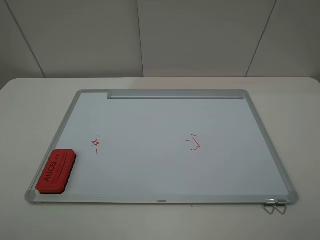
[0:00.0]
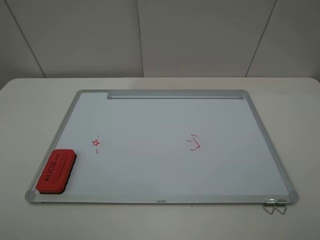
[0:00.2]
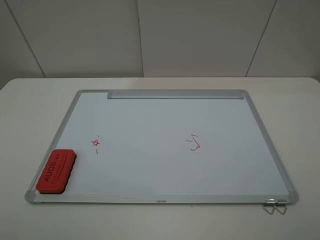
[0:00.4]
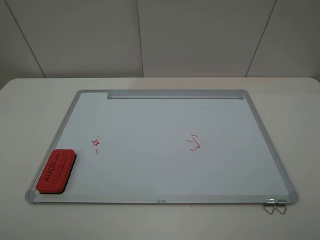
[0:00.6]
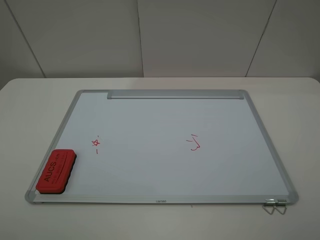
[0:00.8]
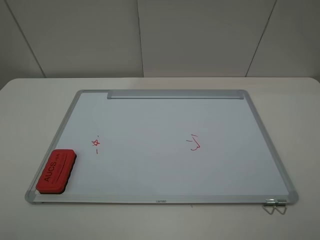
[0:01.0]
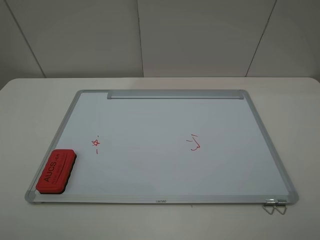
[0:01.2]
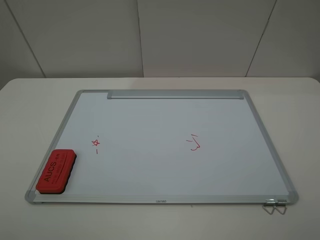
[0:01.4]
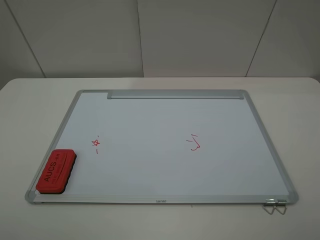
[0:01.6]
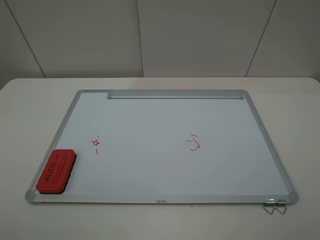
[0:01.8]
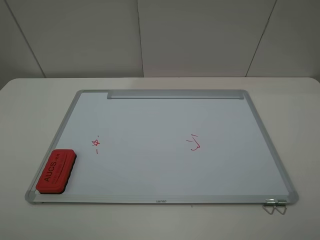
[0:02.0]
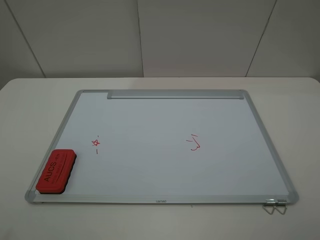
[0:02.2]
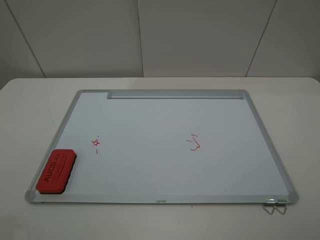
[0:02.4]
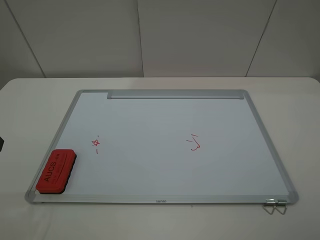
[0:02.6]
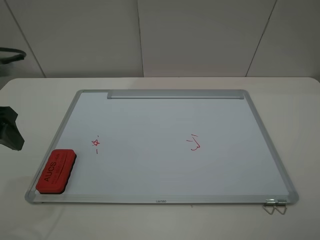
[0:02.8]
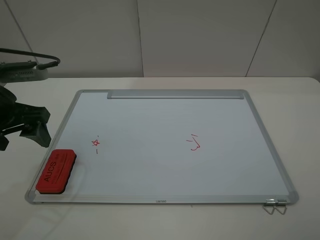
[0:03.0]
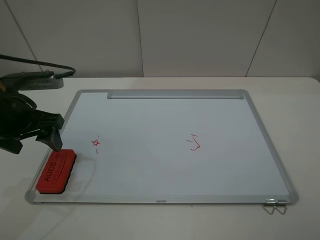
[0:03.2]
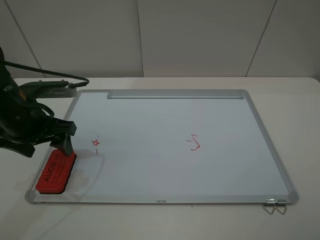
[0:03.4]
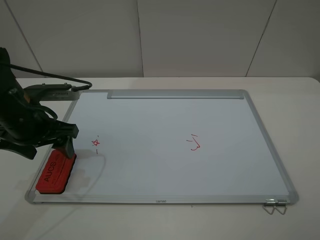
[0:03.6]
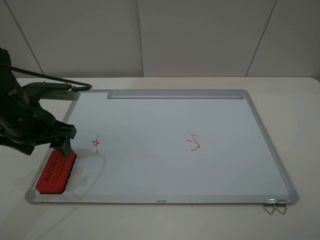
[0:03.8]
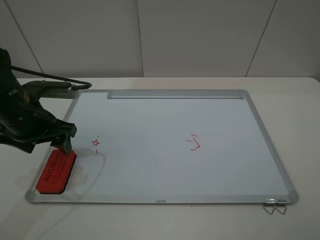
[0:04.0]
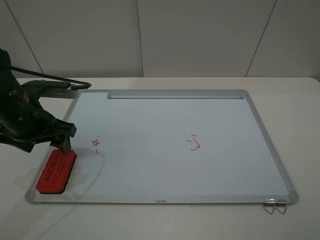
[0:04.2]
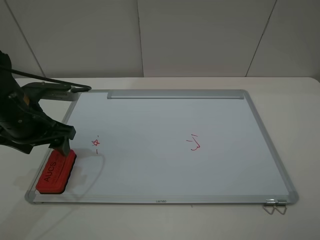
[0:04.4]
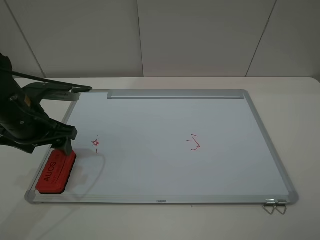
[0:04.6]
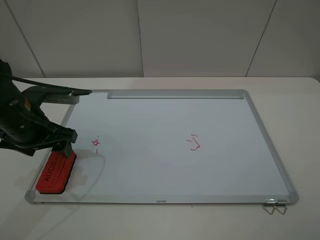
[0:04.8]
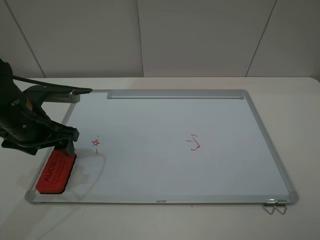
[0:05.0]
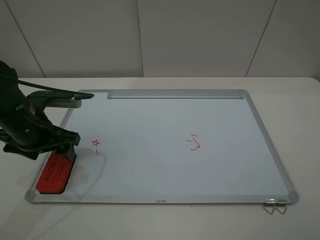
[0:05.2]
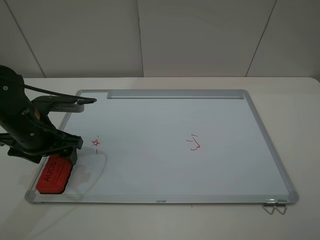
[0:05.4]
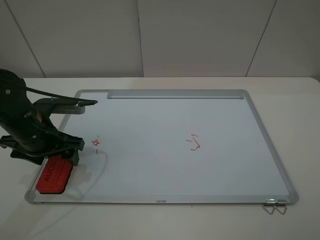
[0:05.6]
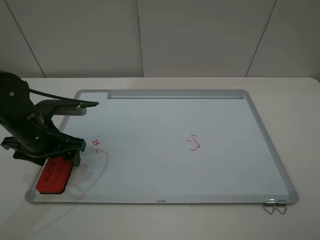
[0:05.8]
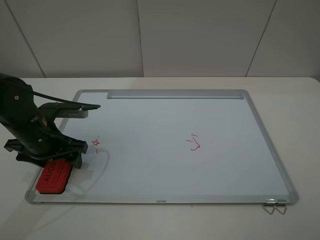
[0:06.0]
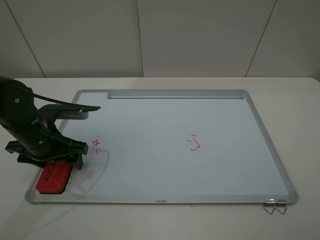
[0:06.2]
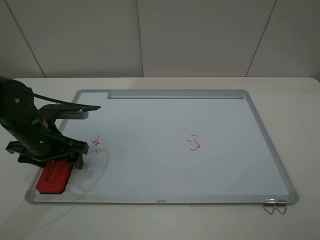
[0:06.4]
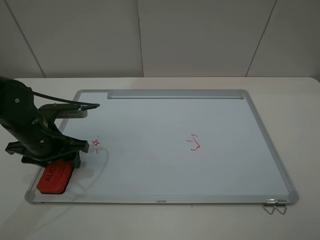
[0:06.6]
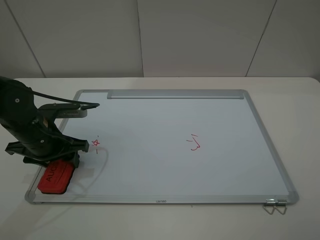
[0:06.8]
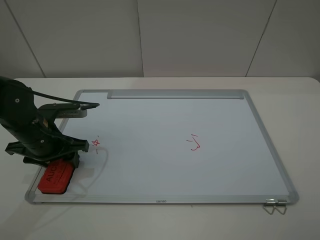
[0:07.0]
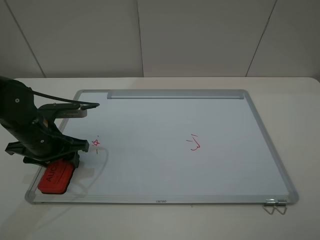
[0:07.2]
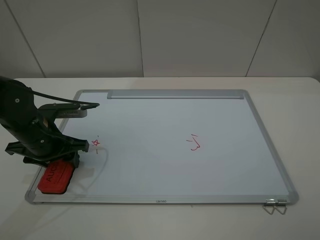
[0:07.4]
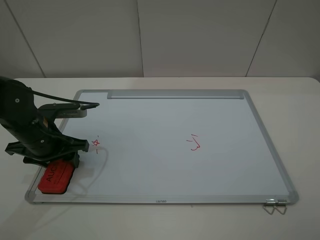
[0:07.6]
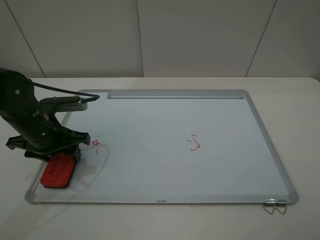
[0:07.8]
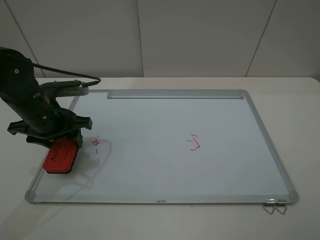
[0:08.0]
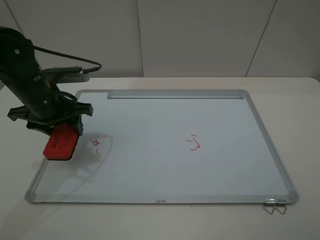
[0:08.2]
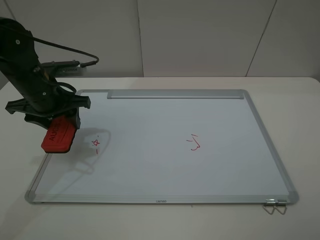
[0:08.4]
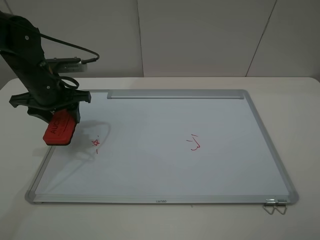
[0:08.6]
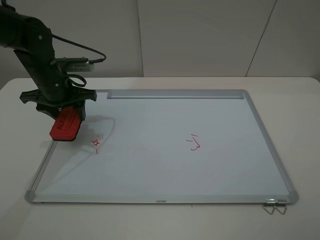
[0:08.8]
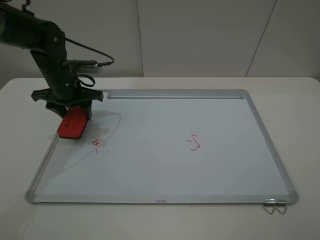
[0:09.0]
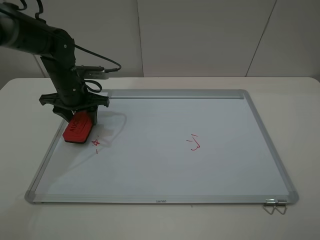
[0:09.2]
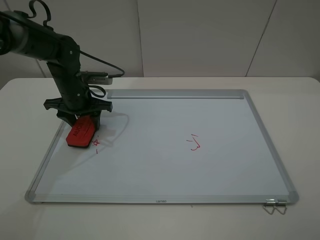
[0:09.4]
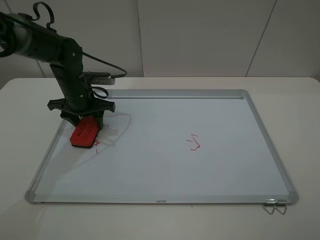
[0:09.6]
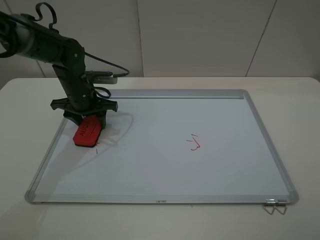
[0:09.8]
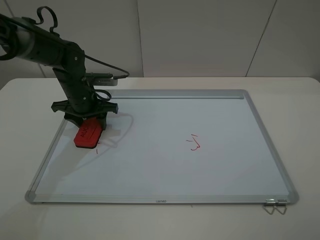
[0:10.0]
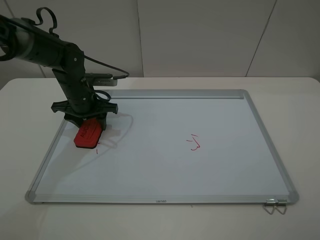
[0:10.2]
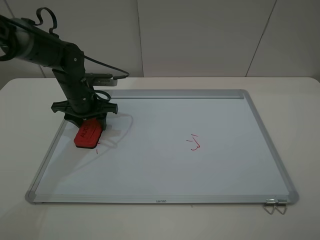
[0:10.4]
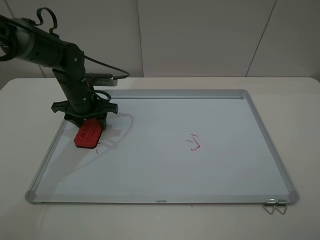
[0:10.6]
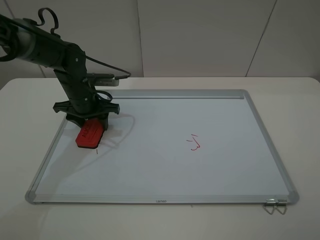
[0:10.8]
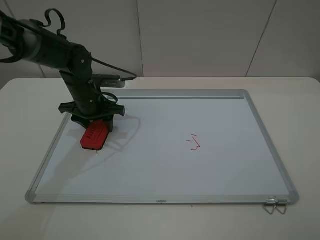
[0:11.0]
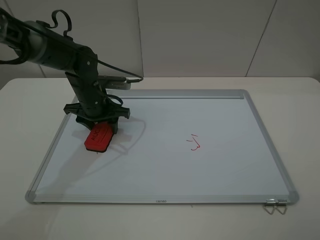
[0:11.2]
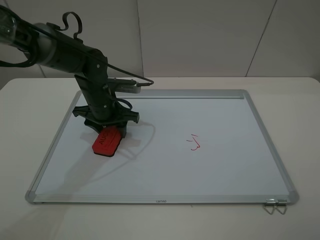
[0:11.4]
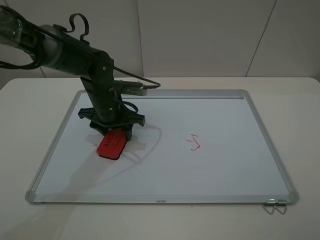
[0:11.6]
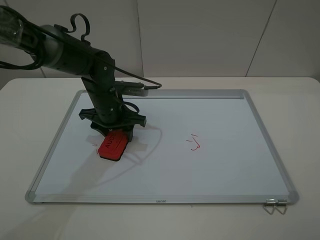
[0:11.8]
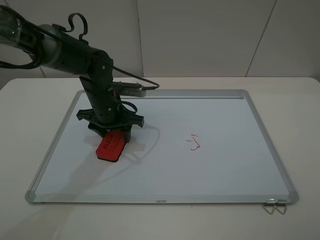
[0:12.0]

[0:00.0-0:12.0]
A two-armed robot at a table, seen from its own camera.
Step, 0:00.0 to 0:06.8: Grasp the eraser with the left gripper.
0:00.0 to 0:01.6: Both grippers stay about where they are.
0:01.6 to 0:03.0: The left gripper goes approximately 25 cm forward.
0:03.0 to 0:04.4: The left gripper moves approximately 5 cm.
0:04.4 to 0:06.0: The left gripper heads downward, covering roughly 5 cm.
0:06.0 to 0:07.6: The left gripper closes.
0:07.6 to 0:09.0: The left gripper shifts approximately 15 cm forward.
0:09.0 to 0:10.4: There are only small adjustments of the grippers.
0:10.4 to 0:12.0: The left gripper travels to the right by some 5 cm.

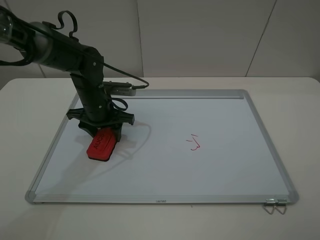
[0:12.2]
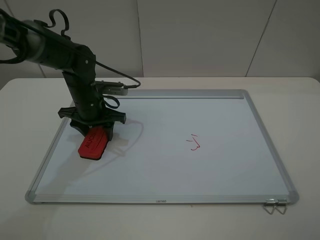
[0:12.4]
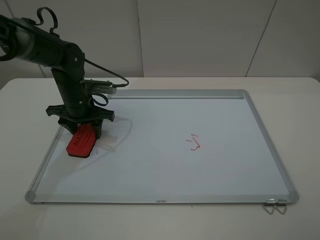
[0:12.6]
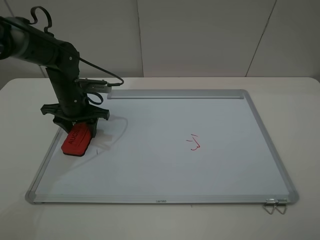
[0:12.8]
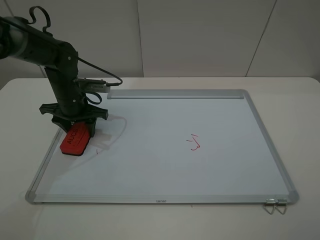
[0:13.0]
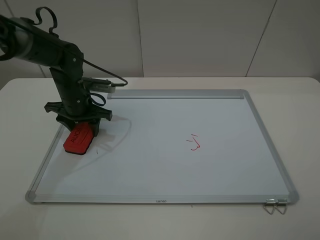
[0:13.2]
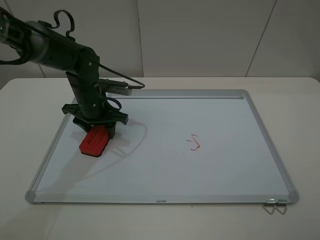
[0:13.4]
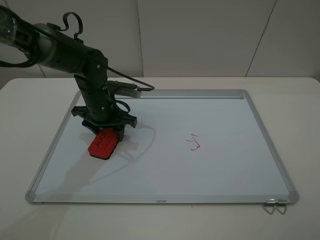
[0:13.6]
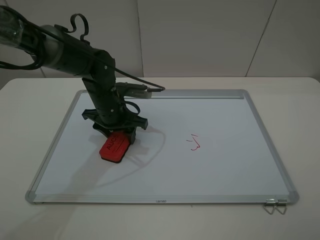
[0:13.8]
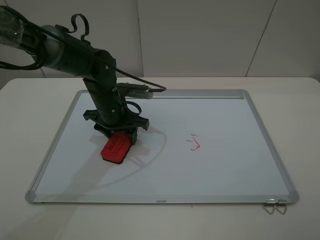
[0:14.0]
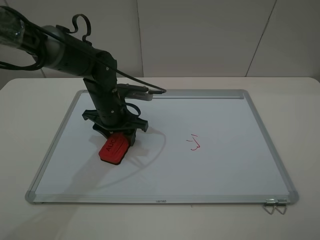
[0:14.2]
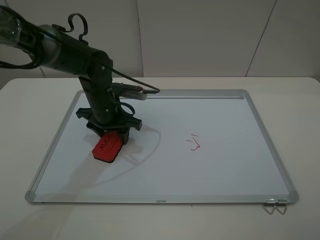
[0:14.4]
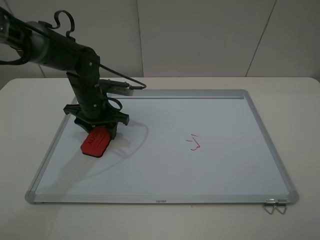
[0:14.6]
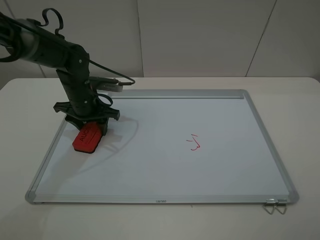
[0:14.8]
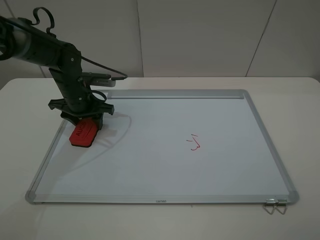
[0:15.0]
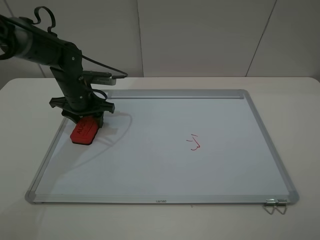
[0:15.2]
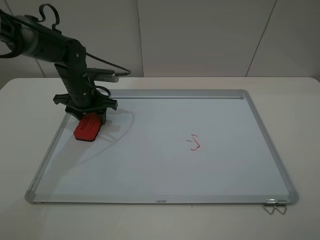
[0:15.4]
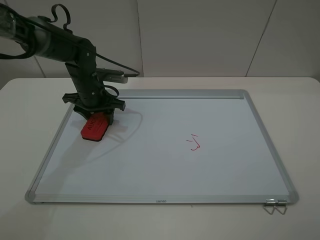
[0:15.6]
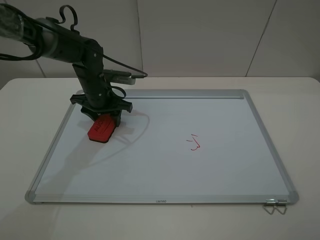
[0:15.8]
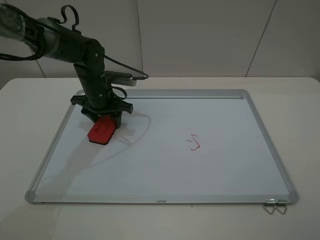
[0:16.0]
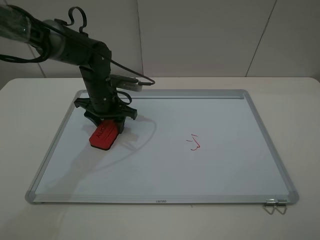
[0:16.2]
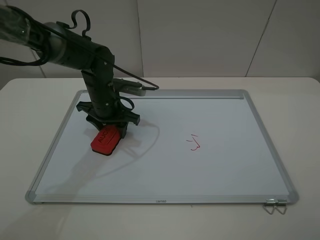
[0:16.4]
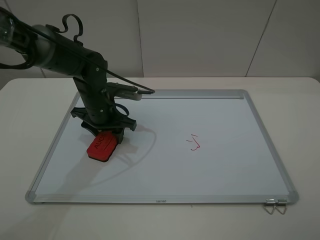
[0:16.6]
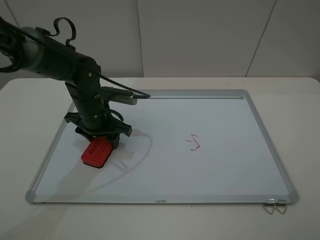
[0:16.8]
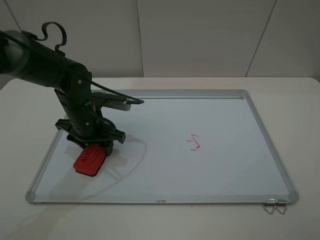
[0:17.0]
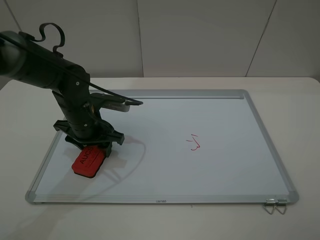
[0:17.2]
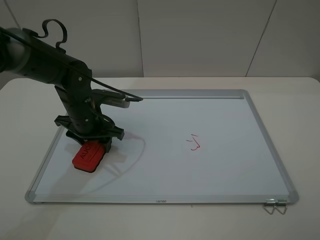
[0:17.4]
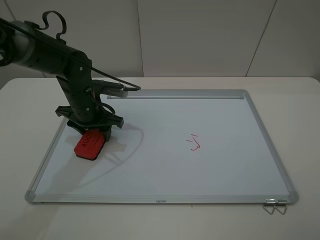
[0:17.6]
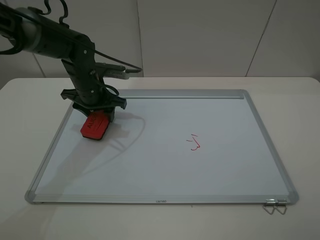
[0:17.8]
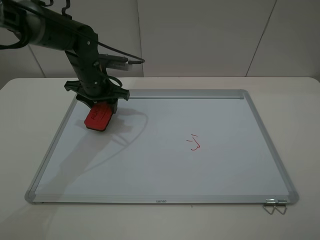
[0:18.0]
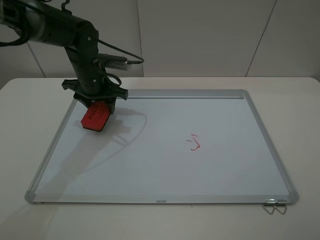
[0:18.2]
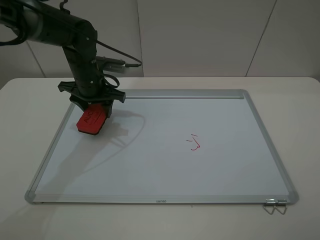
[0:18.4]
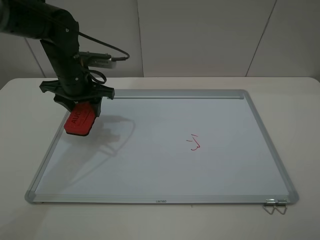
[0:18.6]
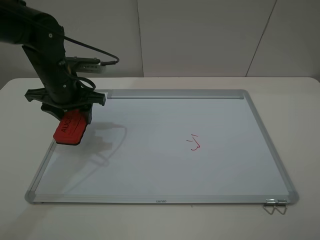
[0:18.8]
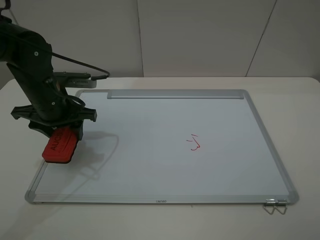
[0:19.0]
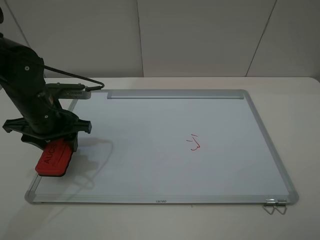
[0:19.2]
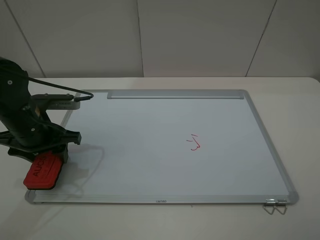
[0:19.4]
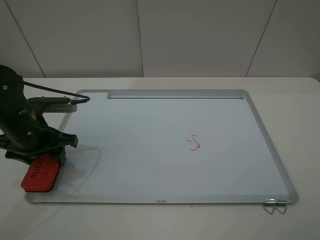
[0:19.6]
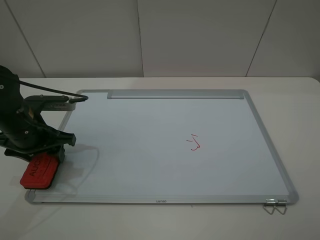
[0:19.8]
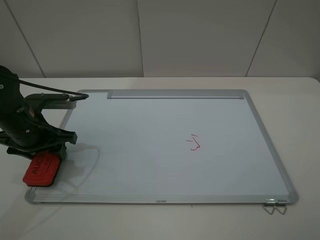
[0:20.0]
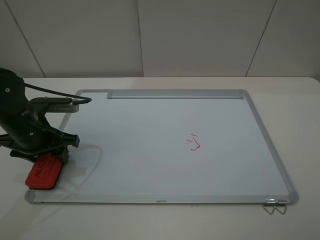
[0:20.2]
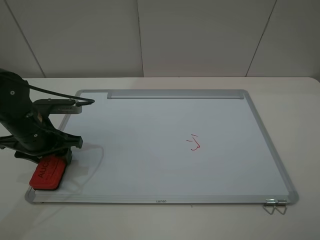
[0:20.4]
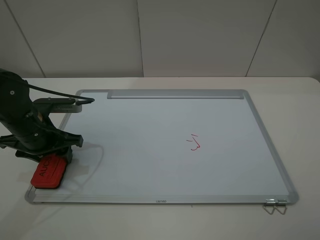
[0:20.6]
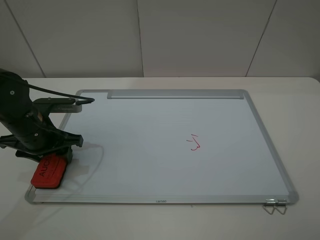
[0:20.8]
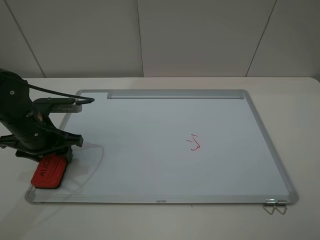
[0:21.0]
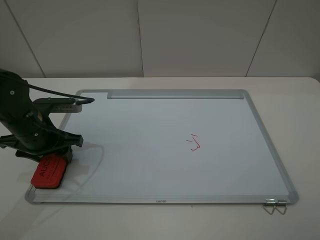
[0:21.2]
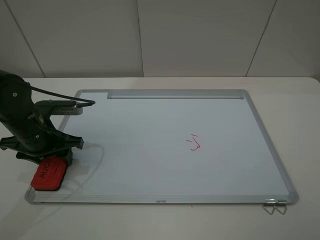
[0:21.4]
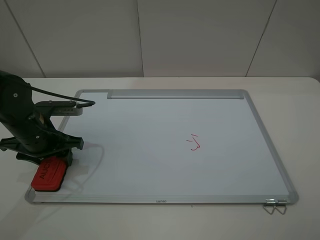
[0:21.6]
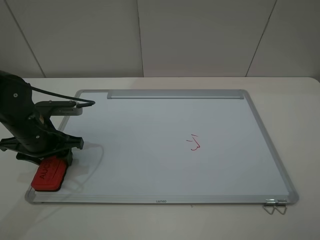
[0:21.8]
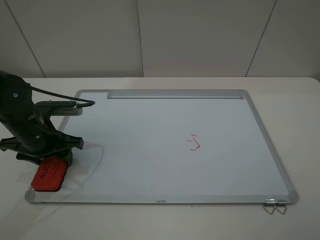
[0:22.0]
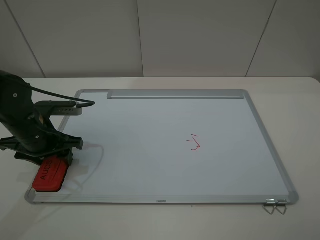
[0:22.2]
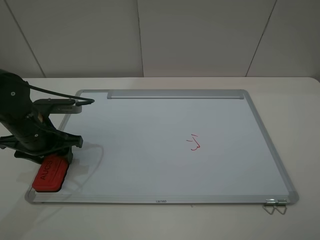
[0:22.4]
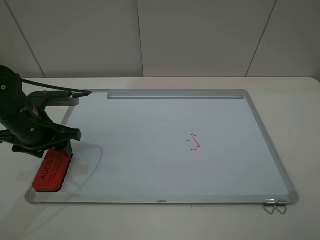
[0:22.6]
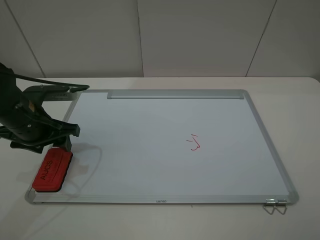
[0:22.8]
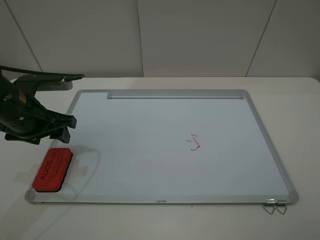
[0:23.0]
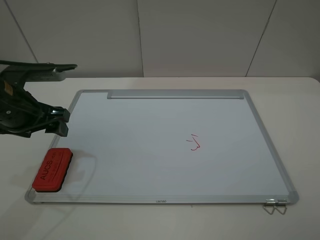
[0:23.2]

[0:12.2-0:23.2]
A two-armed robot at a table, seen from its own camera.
Step, 0:12.2 to 0:18.4: Grasp the eraser and wipe the blackboard with the left gripper.
Step, 0:18.6 to 0:22.8: Place the eraser with the left gripper.
0:13.8 to 0:15.4: The left gripper travels to the left and forward by some 10 cm.
0:15.4 to 0:17.0: The left gripper shifts some 10 cm backward.
0:17.0 to 0:18.4: The left gripper goes about 10 cm forward.
0:18.4 to 0:20.0: The left gripper goes some 15 cm backward and to the left.
0:20.0 to 0:21.6: The grippers make only small movements.
0:21.6 to 0:23.2: The left gripper moves upward, roughly 10 cm, and opens.
